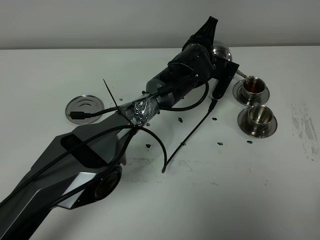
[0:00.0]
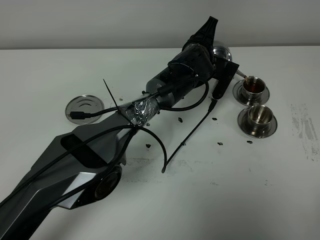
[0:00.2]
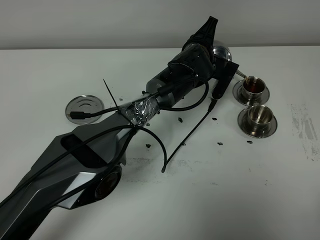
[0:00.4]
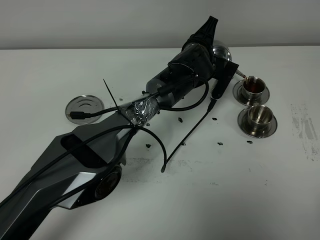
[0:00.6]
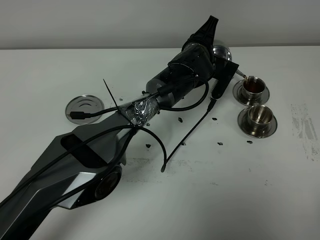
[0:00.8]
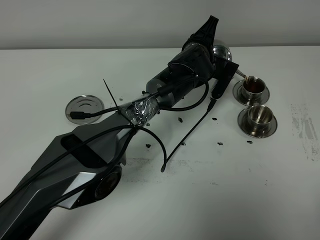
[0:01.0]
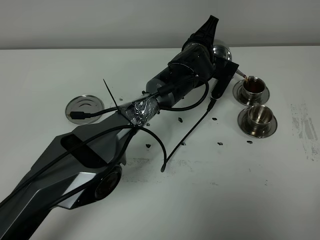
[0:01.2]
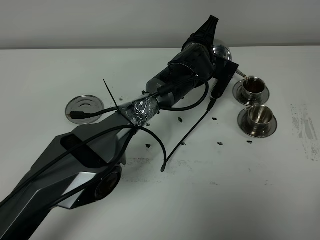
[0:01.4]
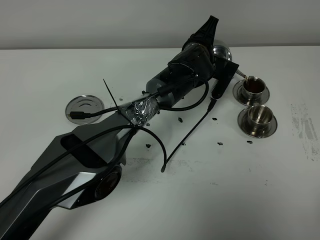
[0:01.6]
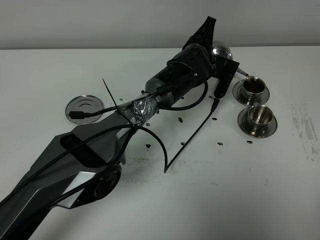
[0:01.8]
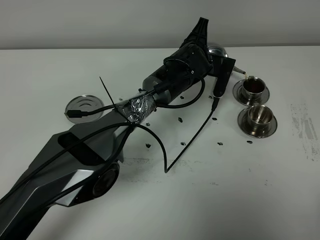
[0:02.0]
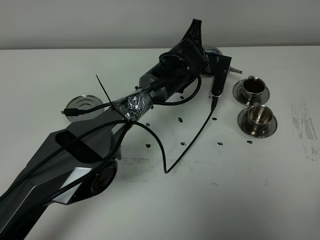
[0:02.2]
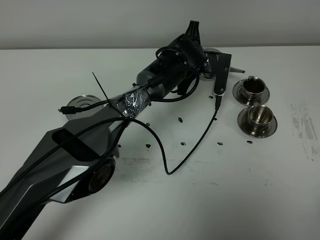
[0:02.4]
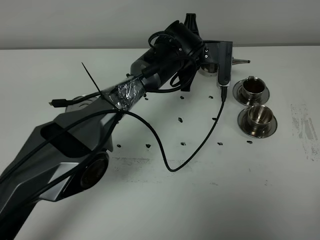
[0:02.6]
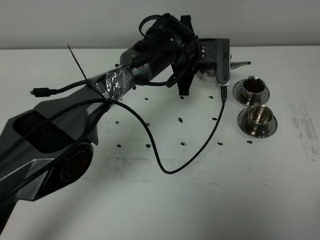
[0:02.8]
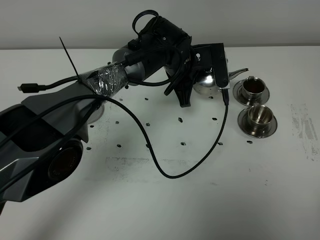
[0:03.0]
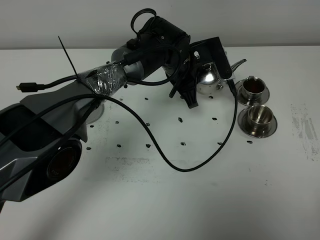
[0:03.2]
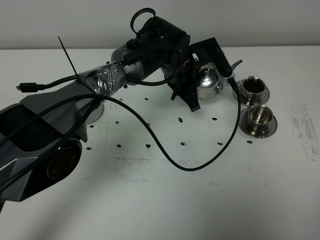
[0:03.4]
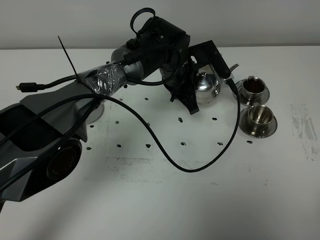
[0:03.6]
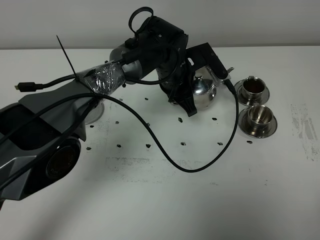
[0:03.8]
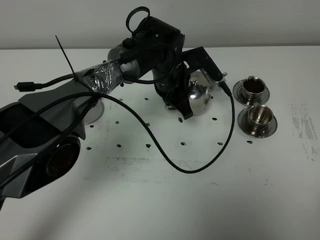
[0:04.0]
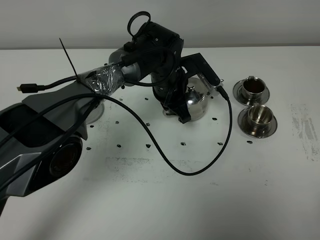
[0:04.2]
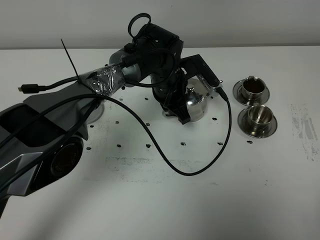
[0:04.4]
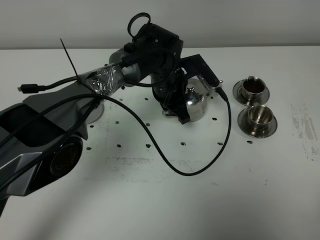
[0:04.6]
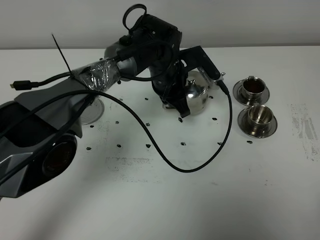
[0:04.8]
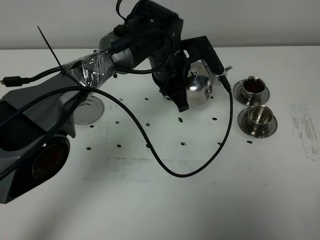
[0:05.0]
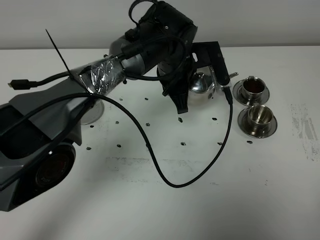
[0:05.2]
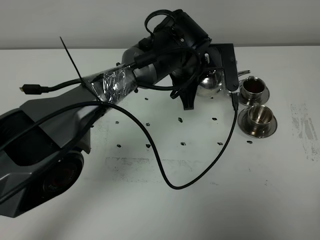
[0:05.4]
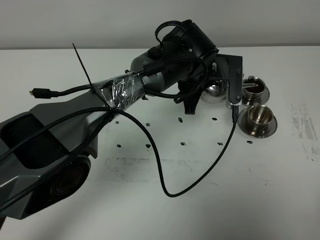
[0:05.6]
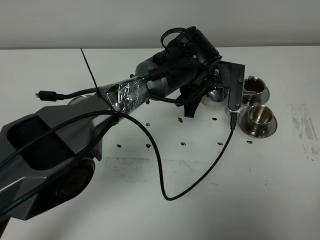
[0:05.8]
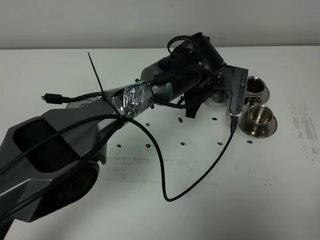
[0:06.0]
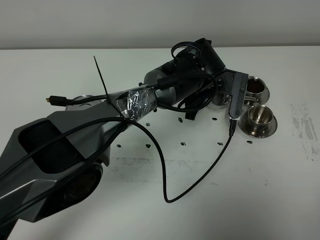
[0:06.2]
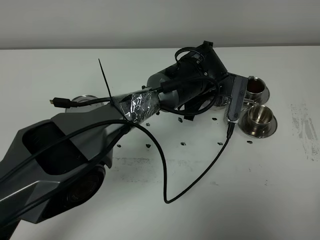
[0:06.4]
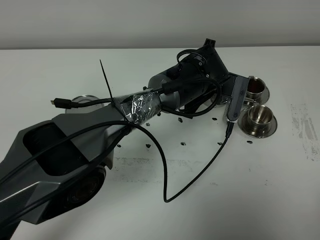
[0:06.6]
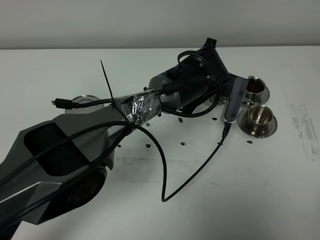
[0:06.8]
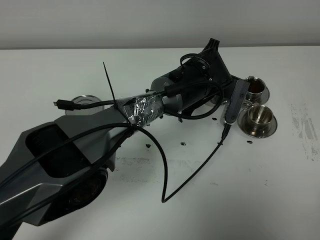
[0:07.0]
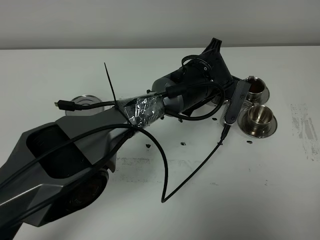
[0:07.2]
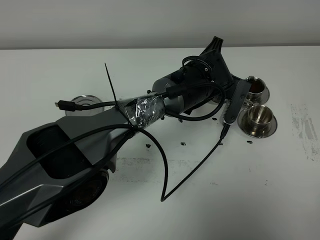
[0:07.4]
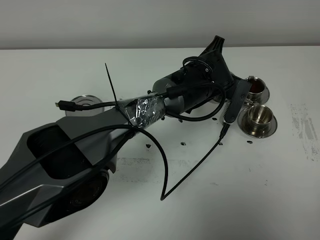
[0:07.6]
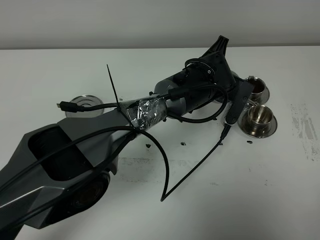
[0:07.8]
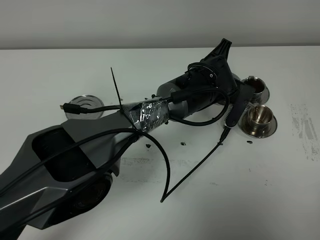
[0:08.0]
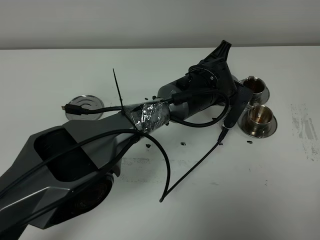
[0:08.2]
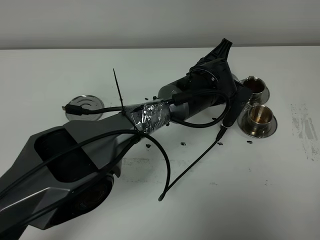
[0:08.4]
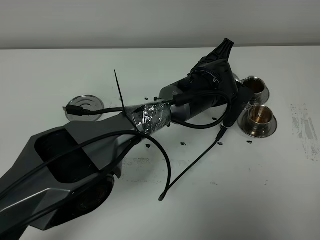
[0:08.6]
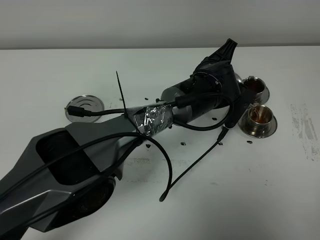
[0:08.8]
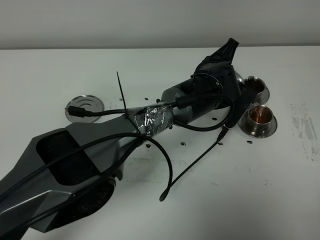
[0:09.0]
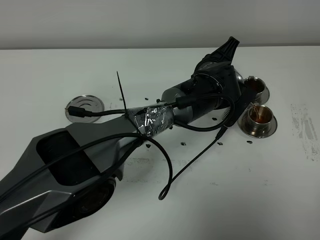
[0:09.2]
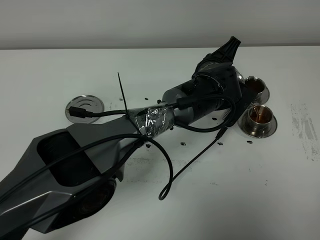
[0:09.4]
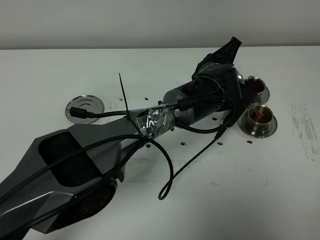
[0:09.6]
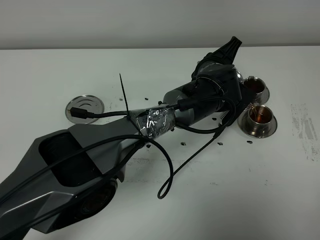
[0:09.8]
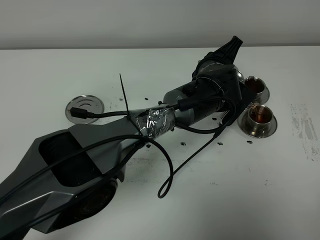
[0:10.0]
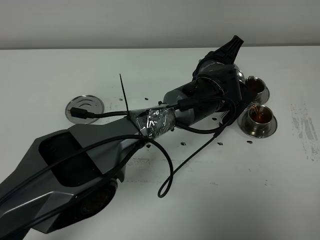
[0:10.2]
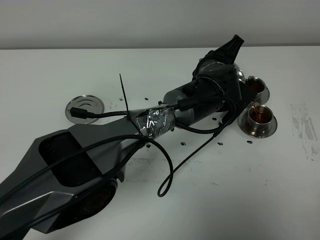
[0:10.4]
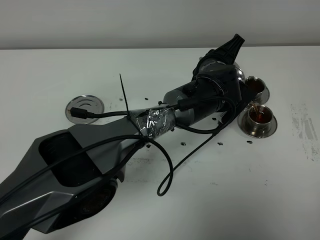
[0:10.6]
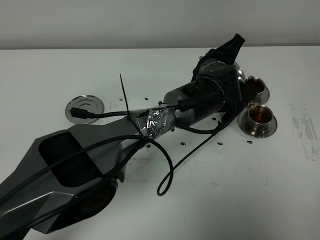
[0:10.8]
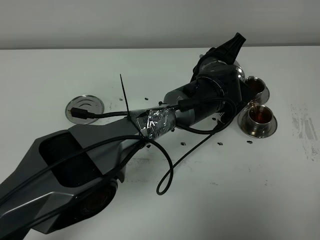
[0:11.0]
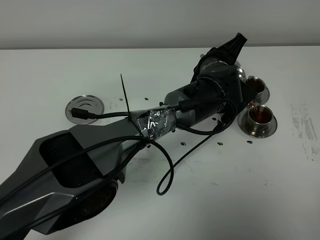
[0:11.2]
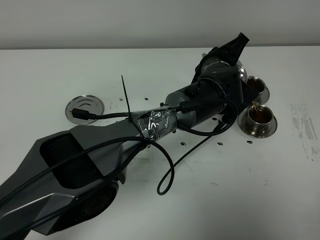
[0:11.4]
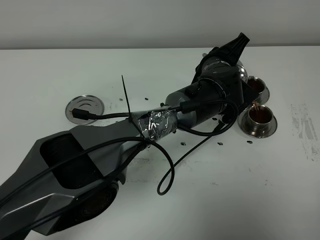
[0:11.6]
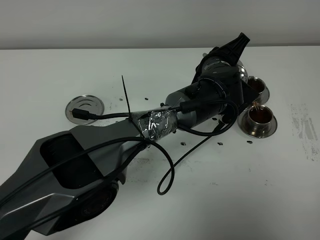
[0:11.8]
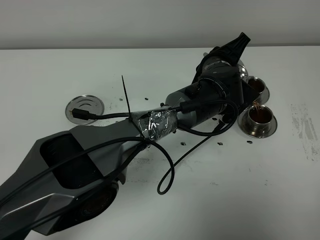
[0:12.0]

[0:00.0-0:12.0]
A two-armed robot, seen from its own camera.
Task of the whole recording: grasp the stainless steel teapot and pour the tea into the two stainless steel teacups one by one, put the stainless steel teapot back in its original place.
0:00.0 to 0:01.6: Both grippers stay about where they are.
0:01.6 to 0:03.0: The left gripper ends up approximately 5 cm from where it was.
0:04.4 to 0:06.0: The left gripper goes about 5 cm to the right.
0:06.0 to 0:07.6: The grippers make only small movements.
0:07.6 to 0:10.4: There are only small adjustments of the grippers.
0:10.4 to 0:12.0: Both grippers stay about where they are.

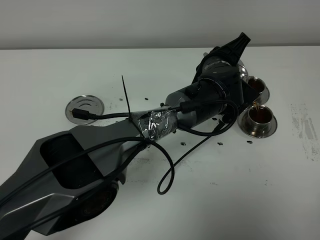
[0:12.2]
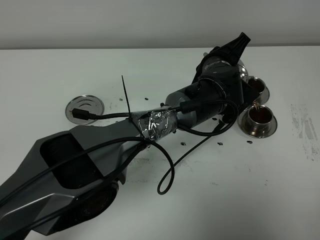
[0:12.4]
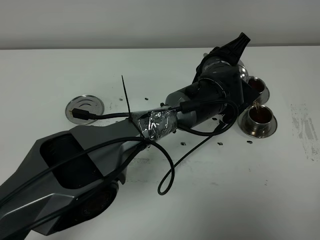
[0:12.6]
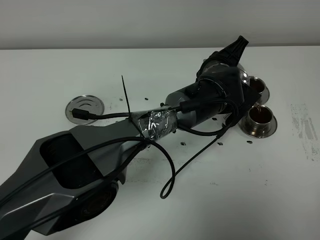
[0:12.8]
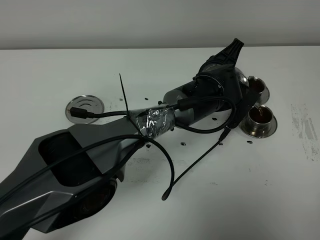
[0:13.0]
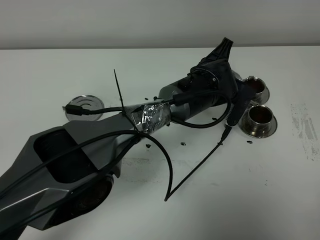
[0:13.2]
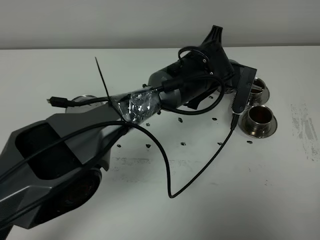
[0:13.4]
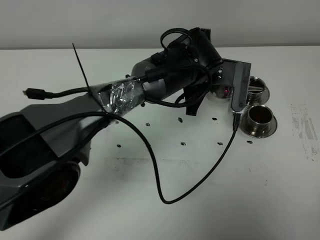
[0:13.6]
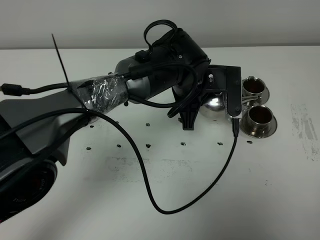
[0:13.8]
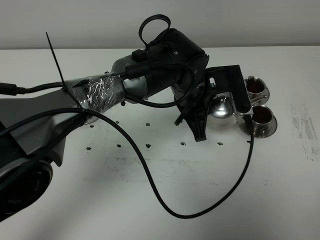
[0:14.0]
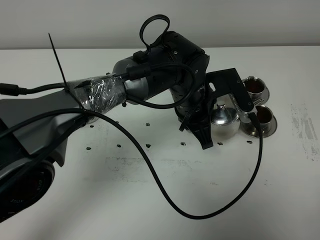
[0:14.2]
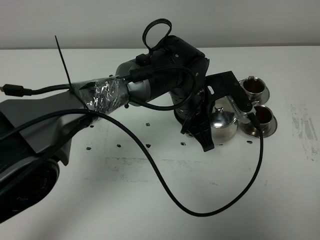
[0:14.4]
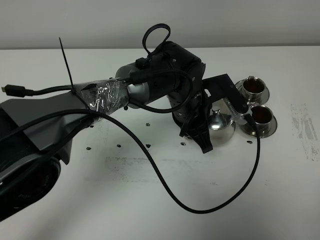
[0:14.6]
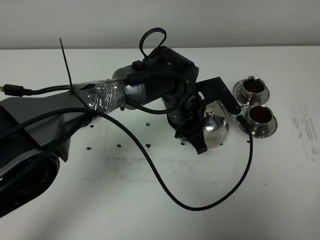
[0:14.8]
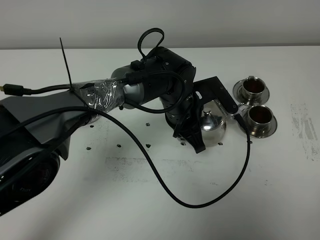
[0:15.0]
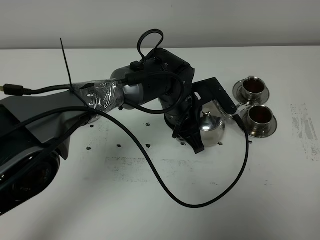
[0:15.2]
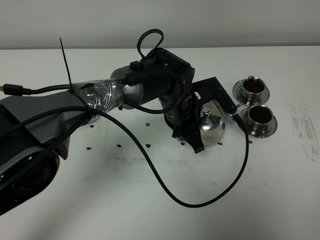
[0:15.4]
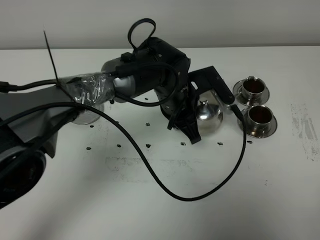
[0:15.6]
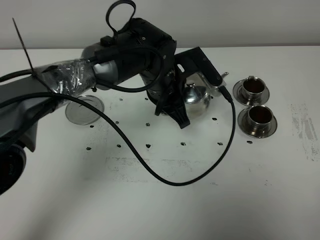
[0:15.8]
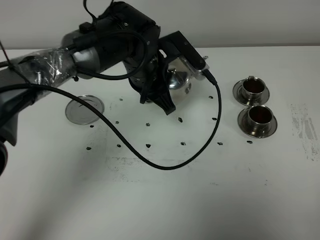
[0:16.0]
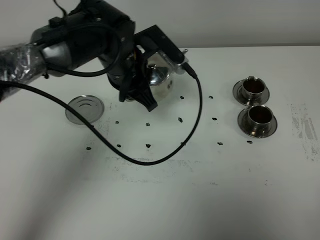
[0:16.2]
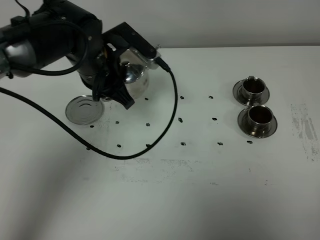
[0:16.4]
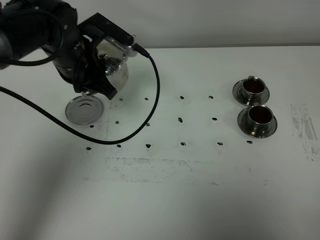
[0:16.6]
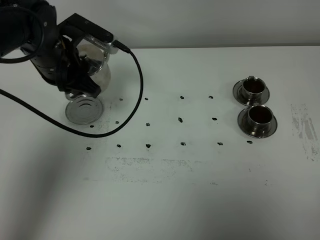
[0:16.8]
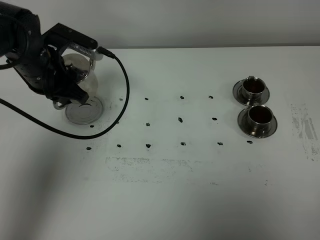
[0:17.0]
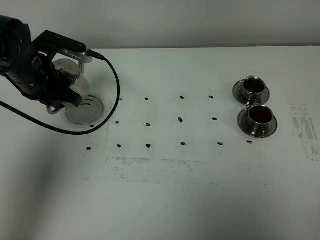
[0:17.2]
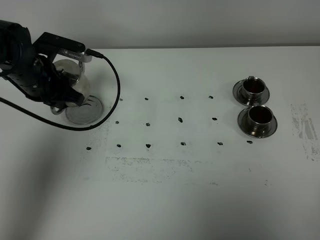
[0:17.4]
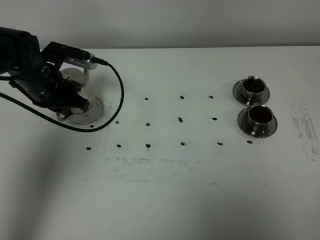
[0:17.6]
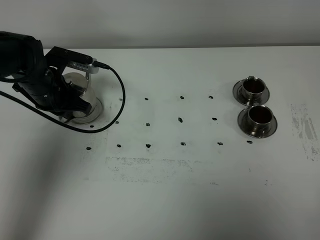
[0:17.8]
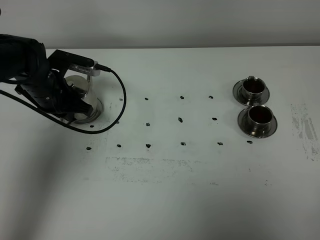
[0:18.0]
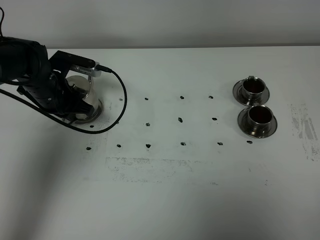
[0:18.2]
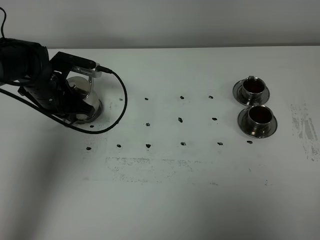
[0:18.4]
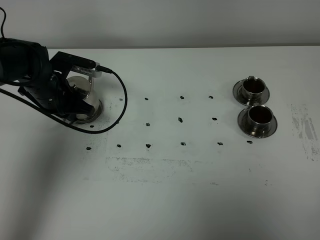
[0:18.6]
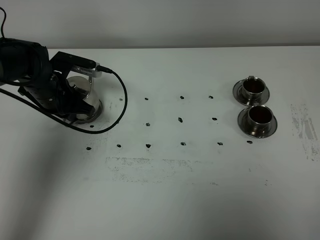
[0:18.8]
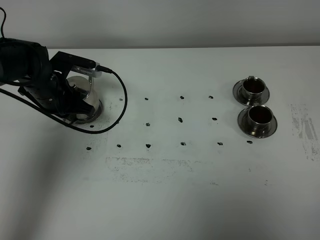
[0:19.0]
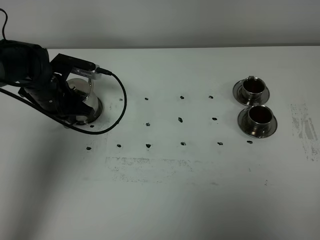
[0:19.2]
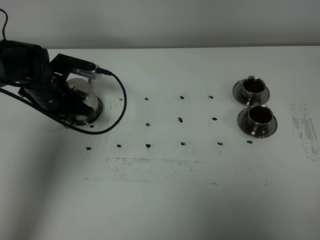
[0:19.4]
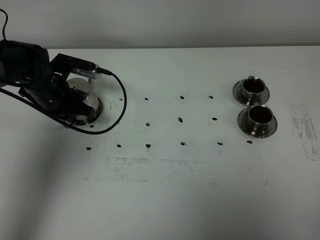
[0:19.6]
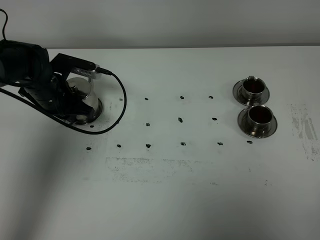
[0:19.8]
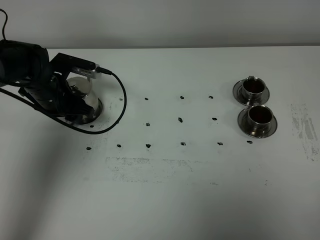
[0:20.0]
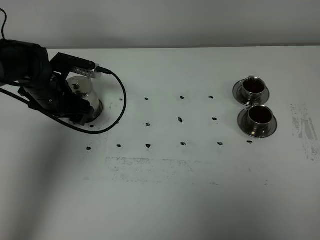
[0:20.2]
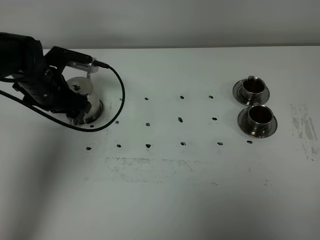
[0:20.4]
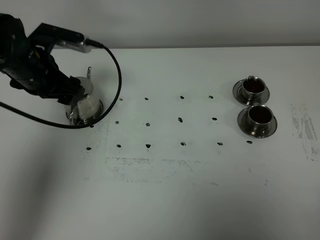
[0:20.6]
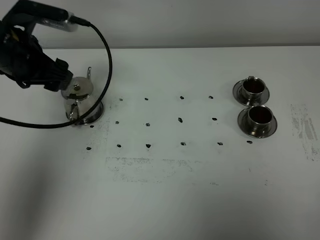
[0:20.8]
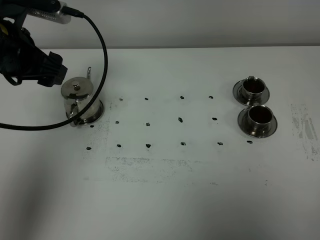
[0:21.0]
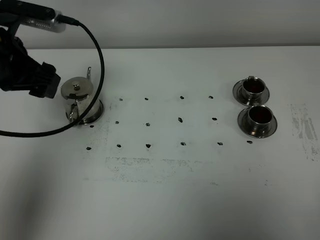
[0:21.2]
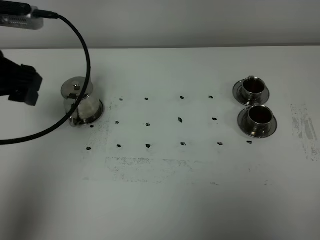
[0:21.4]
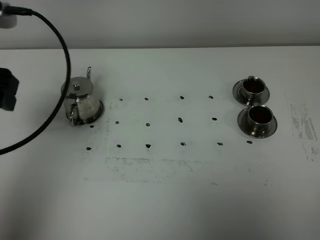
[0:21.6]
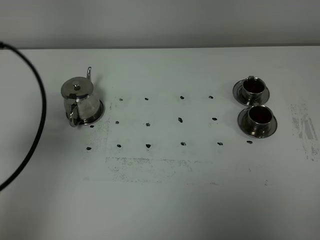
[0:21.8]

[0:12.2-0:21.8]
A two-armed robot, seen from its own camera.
Task of the whole recording: grasp the stainless steel teapot and pour the tea into the two stainless steel teacups one by one, put the stainless steel teapot back in its original place.
0:12.2 to 0:13.8: The left gripper heads to the left, covering approximately 5 cm.
0:13.8 to 0:15.4: The left gripper ends up about 5 cm from where it was.
0:15.4 to 0:17.0: The left gripper is displaced to the left by roughly 25 cm.
0:17.0 to 0:18.6: The left gripper goes some 5 cm downward.
0:18.6 to 0:20.2: The left gripper opens.
0:20.2 to 0:21.8: The left gripper shifts some 25 cm backward and upward.

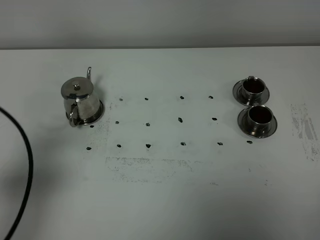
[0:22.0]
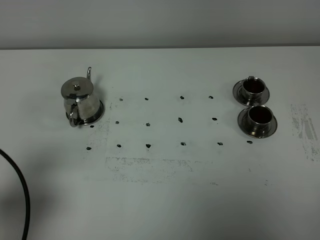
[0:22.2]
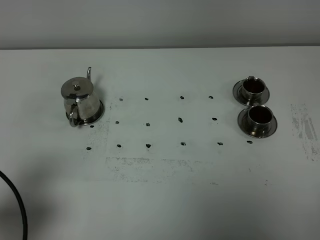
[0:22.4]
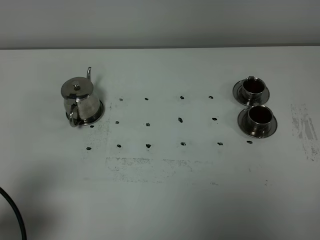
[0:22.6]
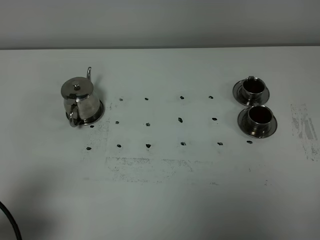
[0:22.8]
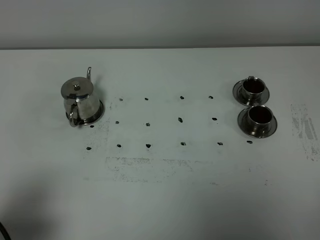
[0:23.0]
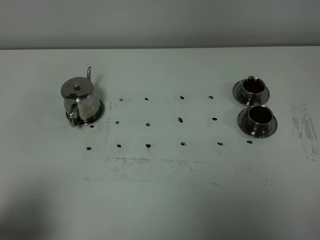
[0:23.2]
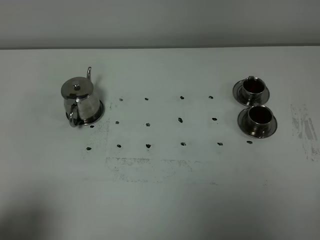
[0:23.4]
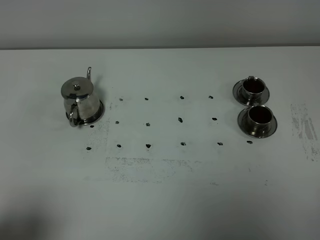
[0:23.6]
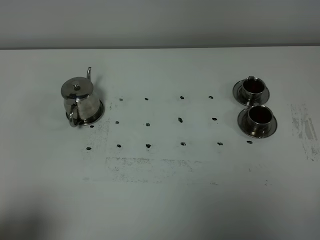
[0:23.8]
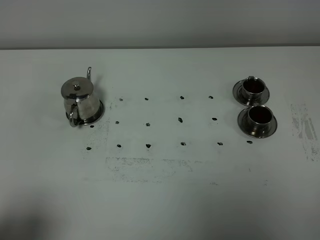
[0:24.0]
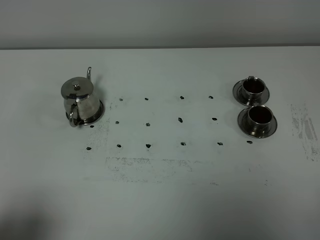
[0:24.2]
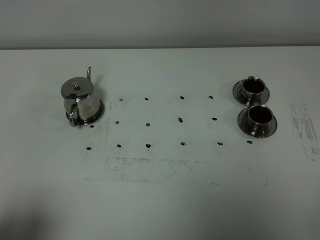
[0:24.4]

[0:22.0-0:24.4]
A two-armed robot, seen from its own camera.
Task of the whole recording: grasp the stainless steel teapot and pour the tea into the two stainless steel teacups one by one, put the stainless steel teapot back in its original place.
0:22.0 to 0:23.2: The left gripper moves backward, approximately 10 cm.
